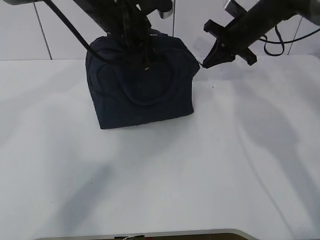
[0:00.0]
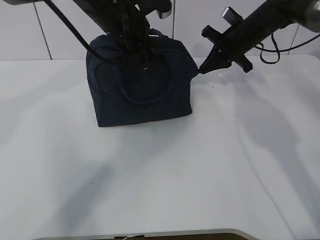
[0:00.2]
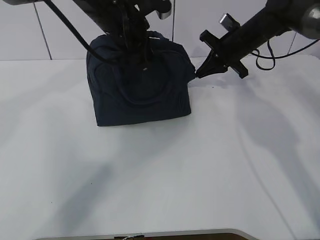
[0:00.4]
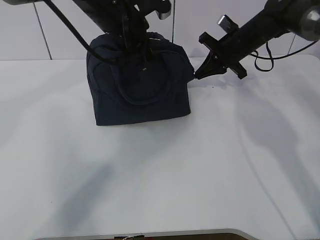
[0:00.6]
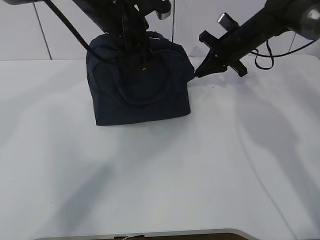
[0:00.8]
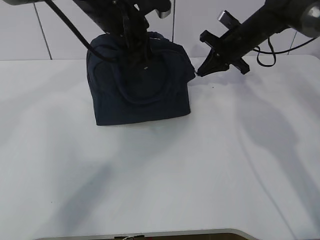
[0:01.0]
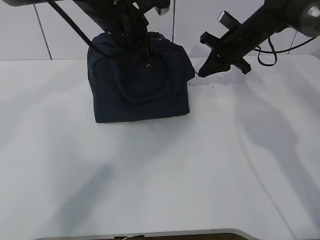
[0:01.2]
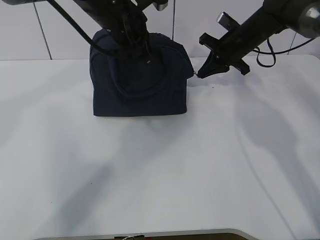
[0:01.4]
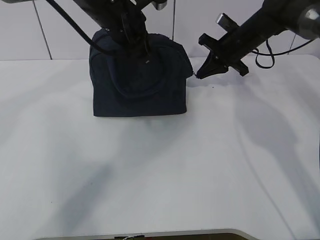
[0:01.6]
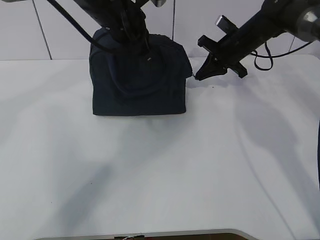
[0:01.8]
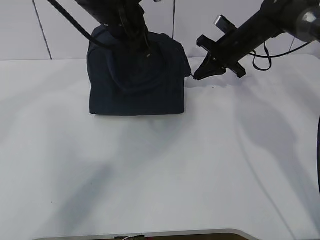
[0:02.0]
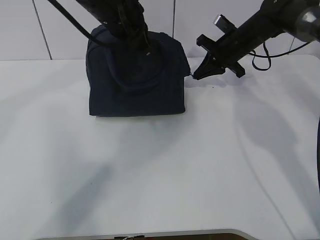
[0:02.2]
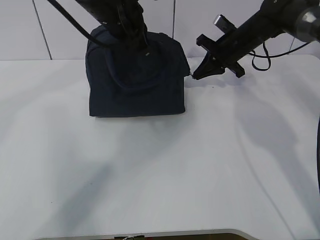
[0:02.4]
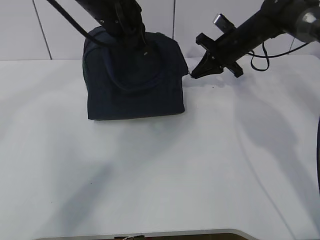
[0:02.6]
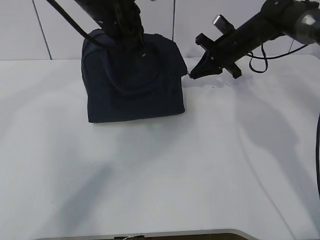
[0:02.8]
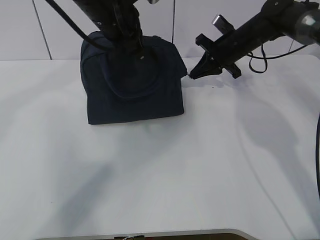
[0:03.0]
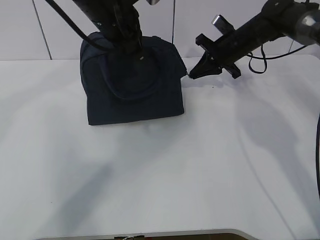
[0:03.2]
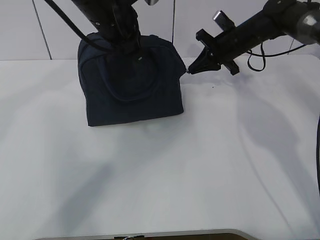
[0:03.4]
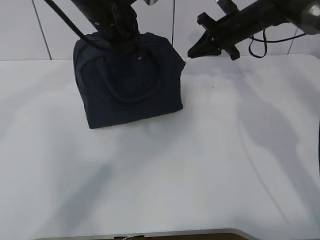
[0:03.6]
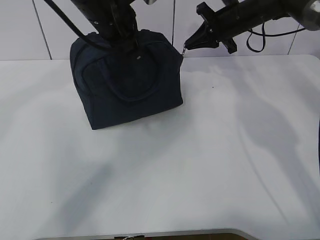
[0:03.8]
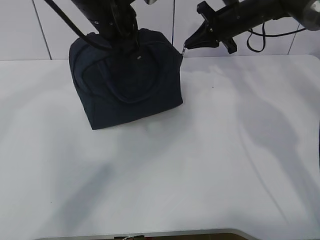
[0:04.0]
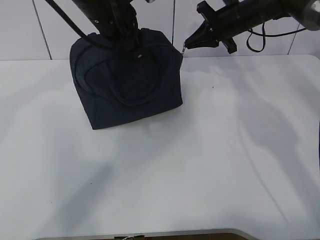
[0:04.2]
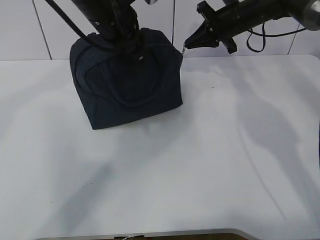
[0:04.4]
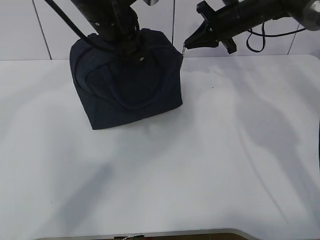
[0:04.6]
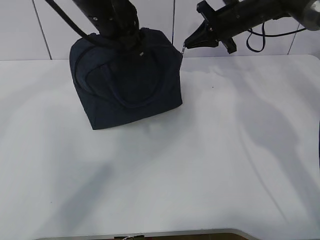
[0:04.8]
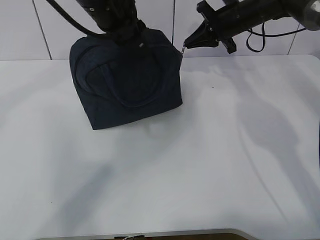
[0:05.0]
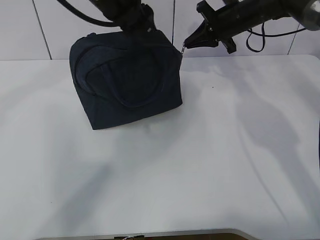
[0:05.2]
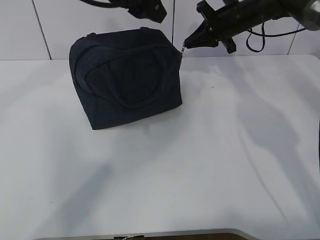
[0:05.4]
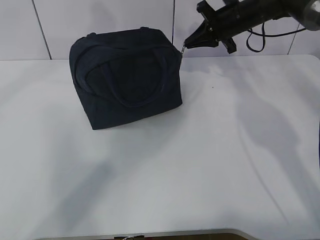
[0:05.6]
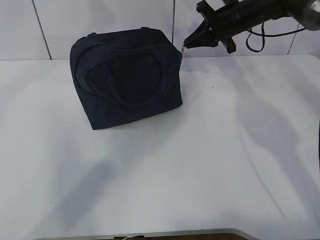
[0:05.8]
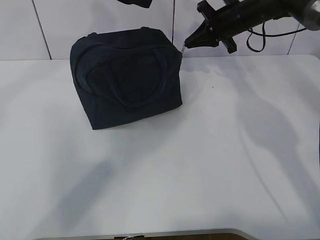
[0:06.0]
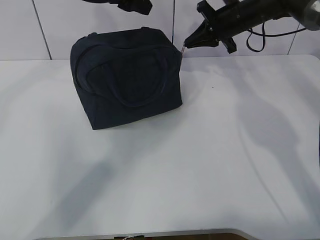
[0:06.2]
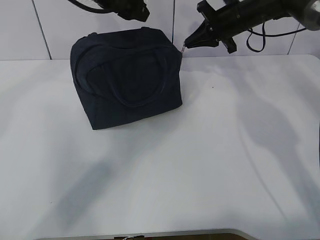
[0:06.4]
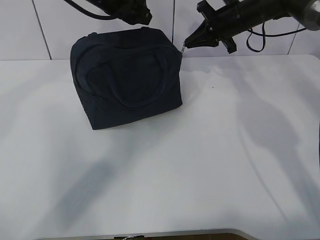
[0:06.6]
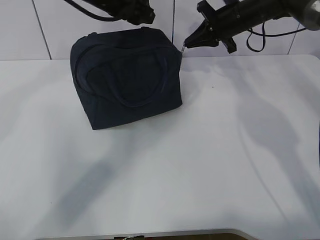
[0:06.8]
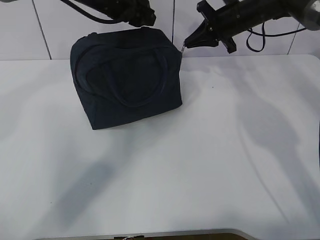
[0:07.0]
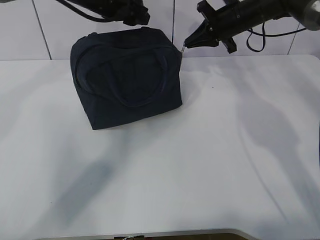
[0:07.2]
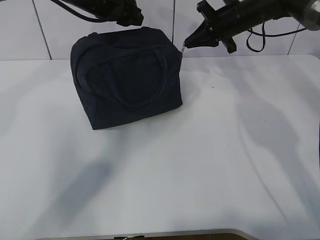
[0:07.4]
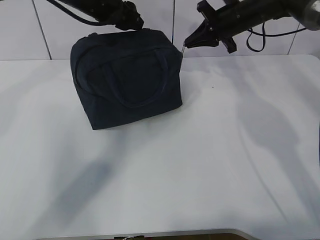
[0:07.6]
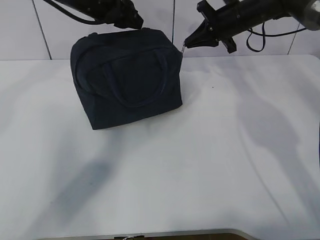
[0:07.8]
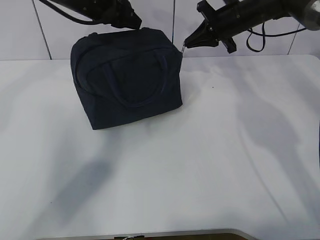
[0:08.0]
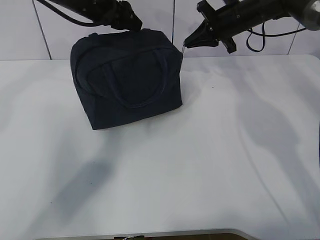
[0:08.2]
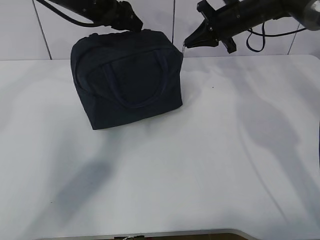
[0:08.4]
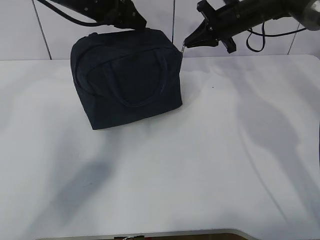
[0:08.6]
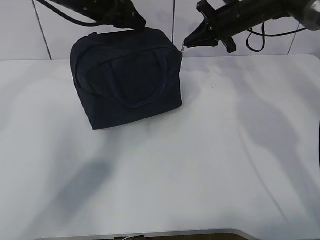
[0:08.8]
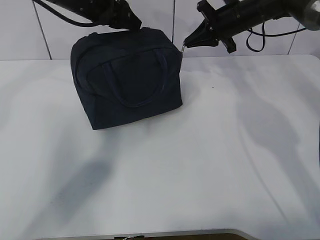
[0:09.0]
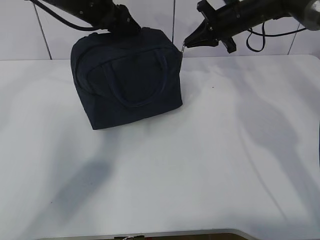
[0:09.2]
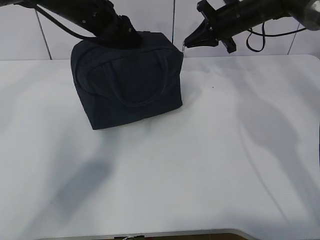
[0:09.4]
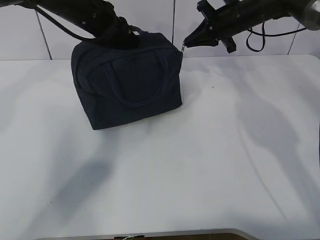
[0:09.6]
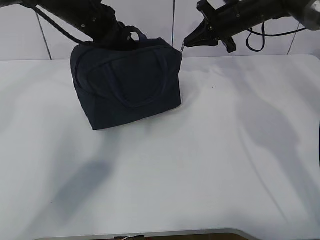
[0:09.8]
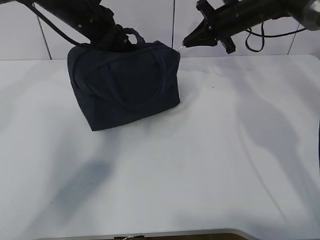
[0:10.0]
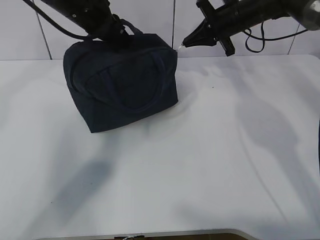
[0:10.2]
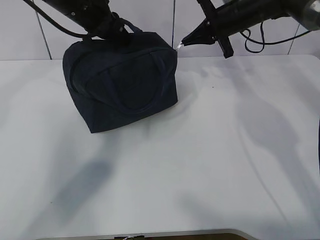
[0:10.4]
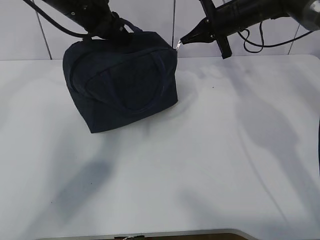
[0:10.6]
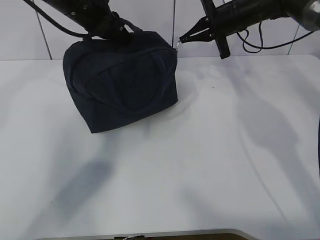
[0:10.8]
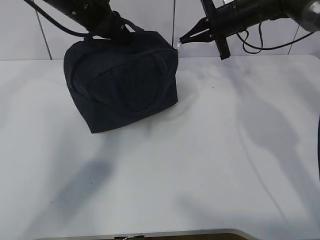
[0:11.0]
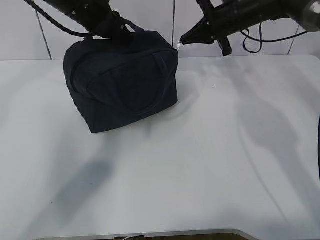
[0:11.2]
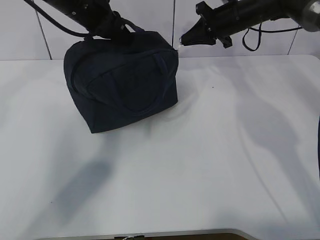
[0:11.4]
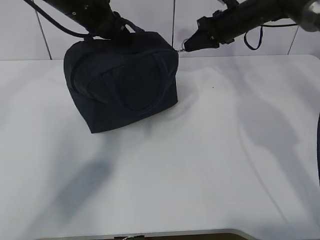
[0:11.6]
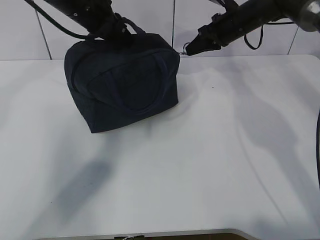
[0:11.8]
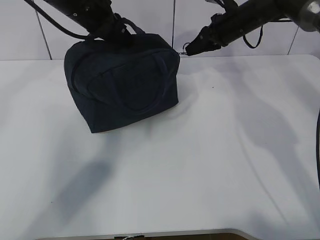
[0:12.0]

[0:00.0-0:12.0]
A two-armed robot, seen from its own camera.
0:00.0 to 0:03.0: The grippers make only small movements.
0:03.0 to 0:04.4: The left gripper opens. The right gripper goes about 5 cm upward.
0:04.4 to 0:06.0: The left gripper moves upward, about 5 cm.
0:06.0 to 0:07.6: The left gripper travels downward and forward by about 10 cm.
0:07.6 to 0:09.0: The grippers stay close to where they were, moving slightly.
0:09.0 to 0:10.4: The left gripper closes its fingers.

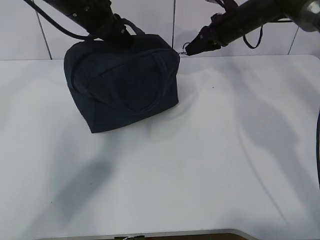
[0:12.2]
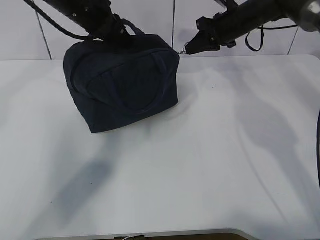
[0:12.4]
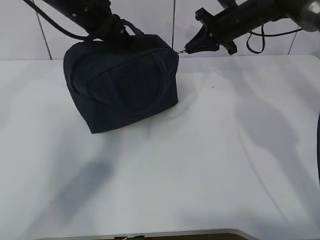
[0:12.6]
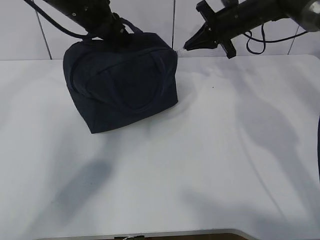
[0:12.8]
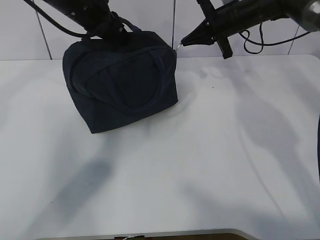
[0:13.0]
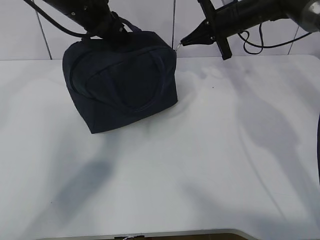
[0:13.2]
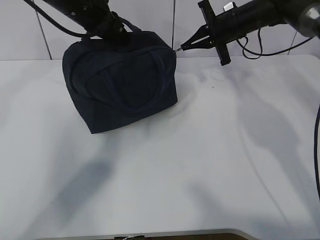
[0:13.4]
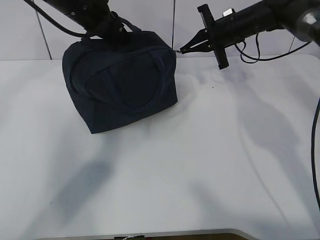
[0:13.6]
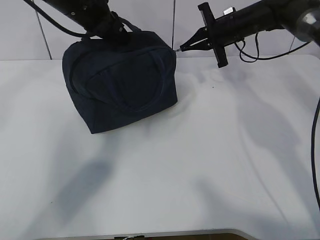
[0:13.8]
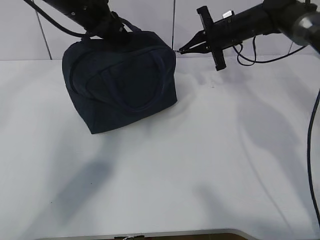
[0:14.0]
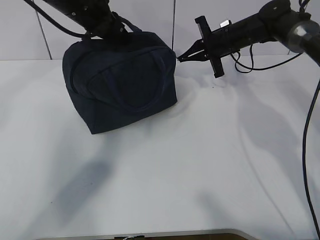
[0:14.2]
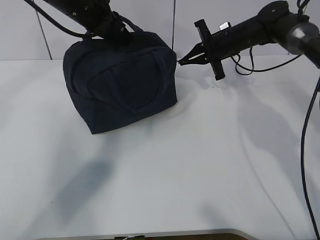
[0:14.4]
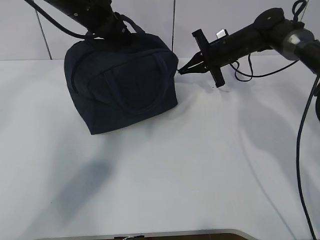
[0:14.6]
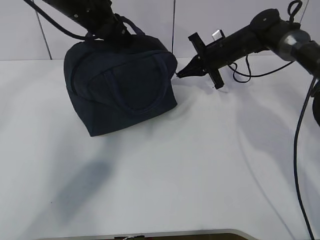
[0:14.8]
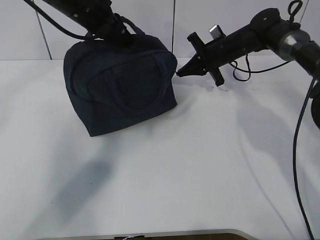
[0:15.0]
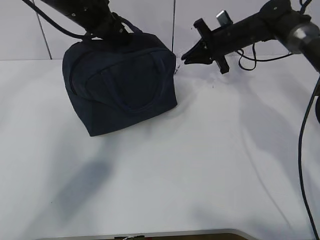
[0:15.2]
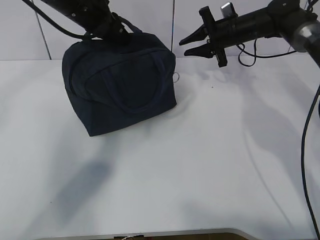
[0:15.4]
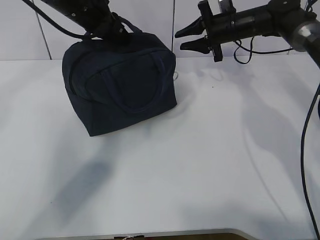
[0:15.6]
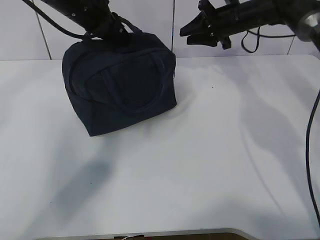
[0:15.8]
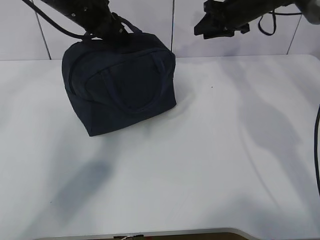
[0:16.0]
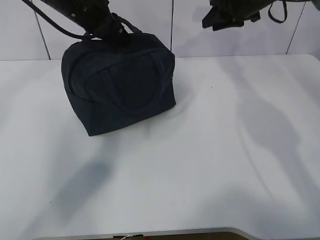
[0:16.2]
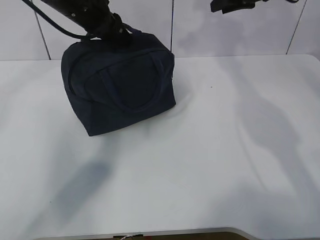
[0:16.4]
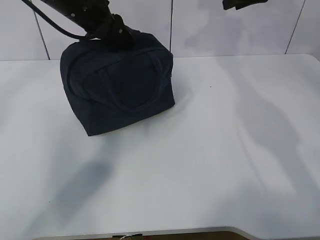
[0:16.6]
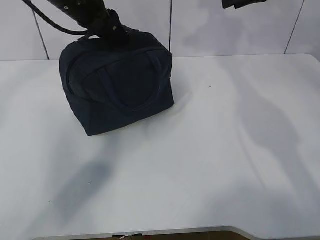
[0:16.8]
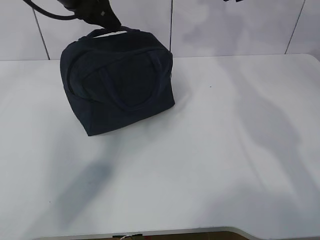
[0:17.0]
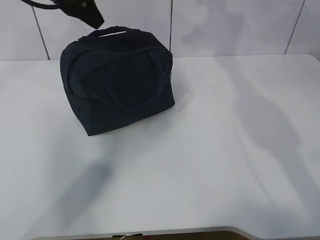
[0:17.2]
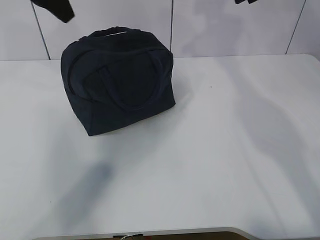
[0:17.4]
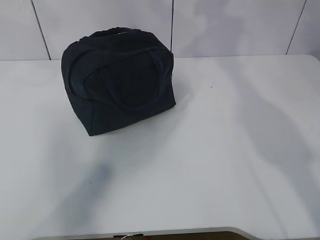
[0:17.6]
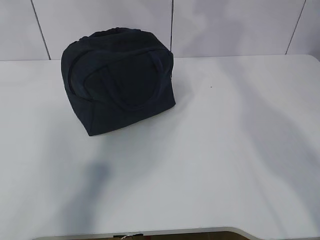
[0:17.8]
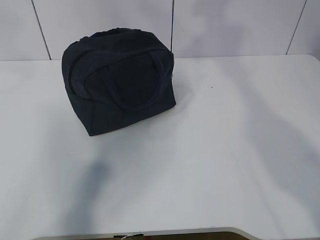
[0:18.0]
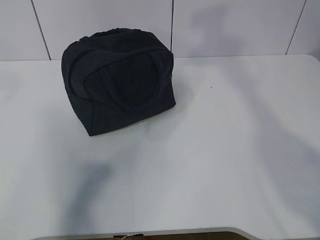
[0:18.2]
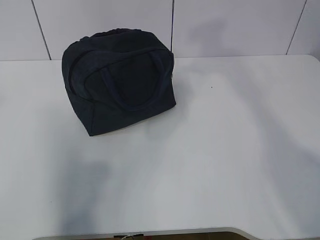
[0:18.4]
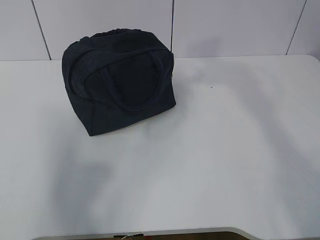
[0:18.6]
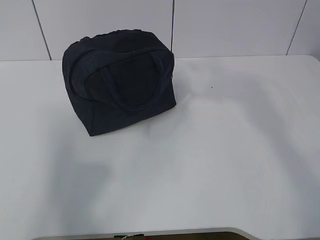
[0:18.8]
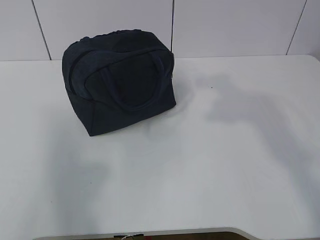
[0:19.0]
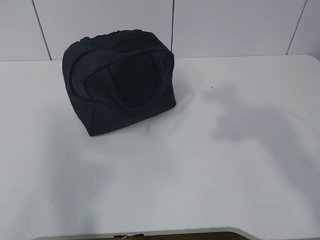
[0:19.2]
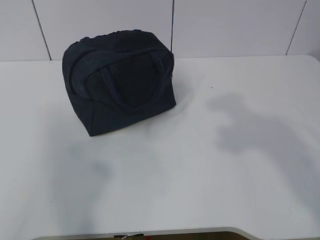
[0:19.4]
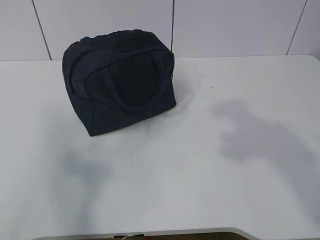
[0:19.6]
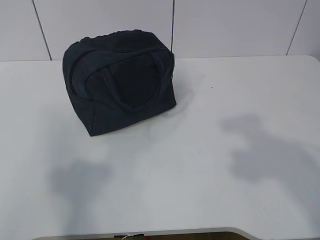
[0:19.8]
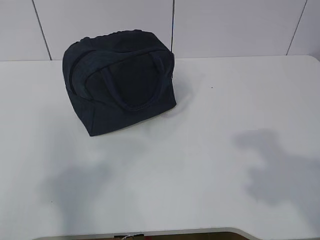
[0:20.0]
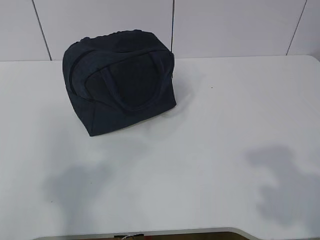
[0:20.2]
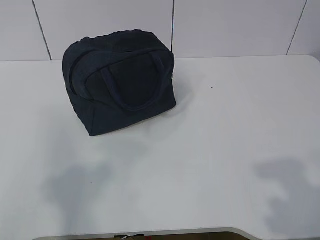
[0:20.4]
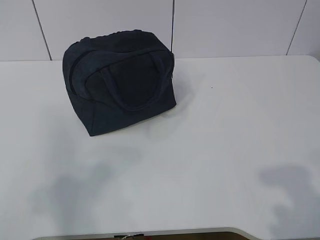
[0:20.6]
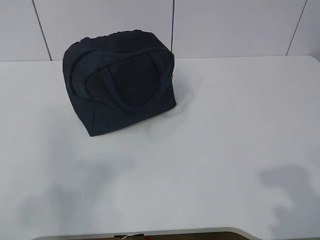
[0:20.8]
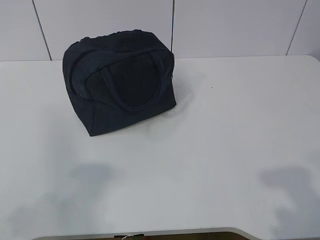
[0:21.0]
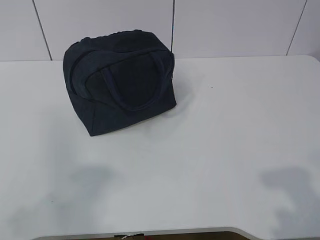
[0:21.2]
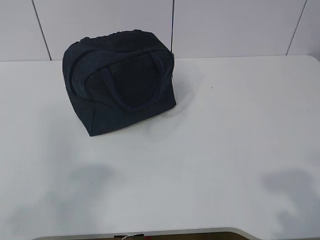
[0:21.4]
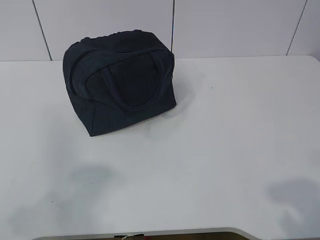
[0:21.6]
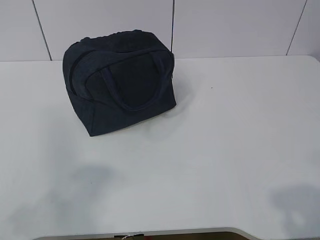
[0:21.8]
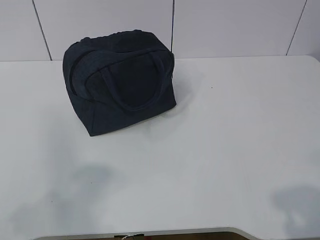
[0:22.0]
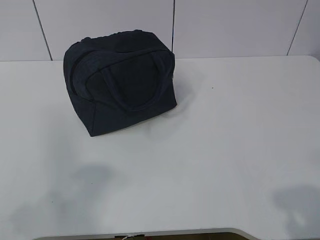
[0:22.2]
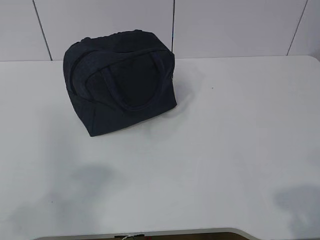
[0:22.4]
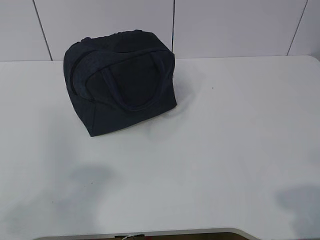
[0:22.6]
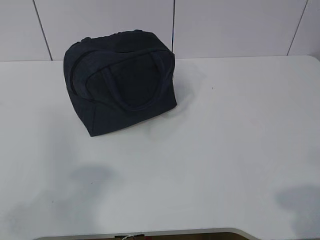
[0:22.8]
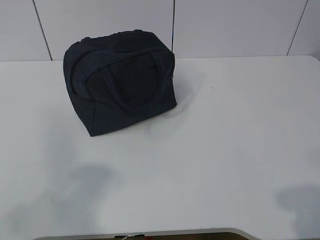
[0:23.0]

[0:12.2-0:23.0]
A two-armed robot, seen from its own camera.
0:15.2 to 0:16.8: The right gripper travels upward by approximately 15 cm, and opens. Meanwhile the left gripper opens up.
0:16.8 to 0:18.4: The left gripper travels backward, upward and to the left by approximately 35 cm. The right gripper moves backward and upward, approximately 30 cm.
0:18.4 to 0:20.0: The left gripper travels backward and downward by approximately 20 cm.
0:20.0 to 0:21.4: The right gripper moves downward, roughly 5 cm.
0:21.4 to 0:23.0: There are only small adjustments of the grippers.
